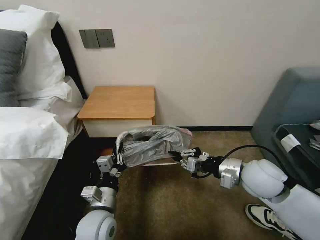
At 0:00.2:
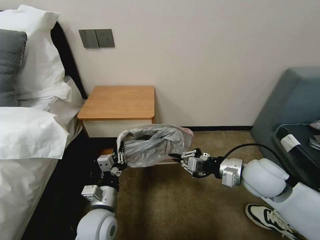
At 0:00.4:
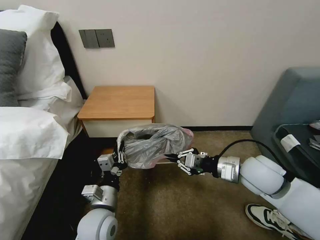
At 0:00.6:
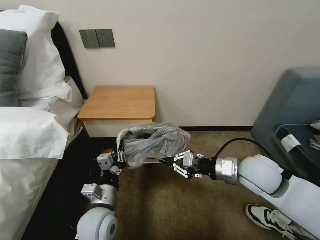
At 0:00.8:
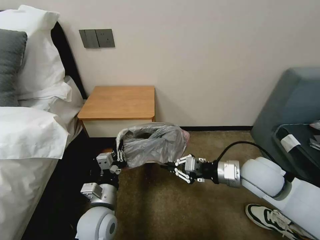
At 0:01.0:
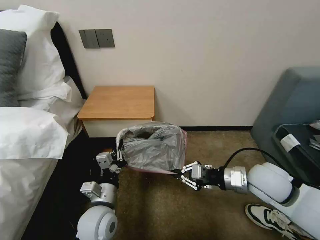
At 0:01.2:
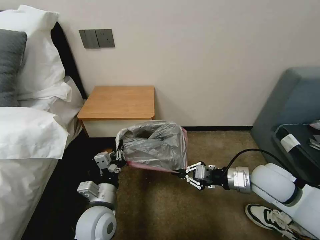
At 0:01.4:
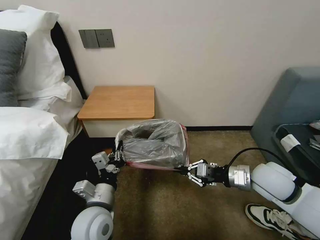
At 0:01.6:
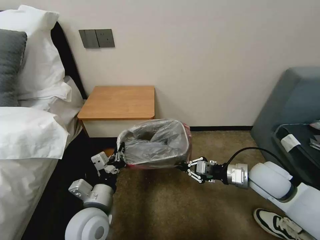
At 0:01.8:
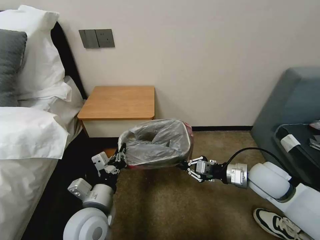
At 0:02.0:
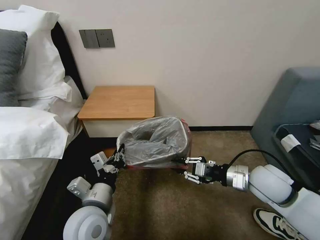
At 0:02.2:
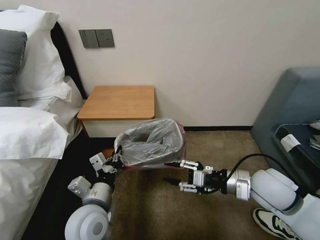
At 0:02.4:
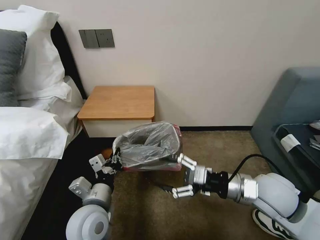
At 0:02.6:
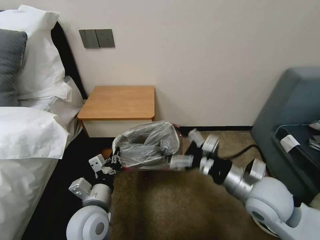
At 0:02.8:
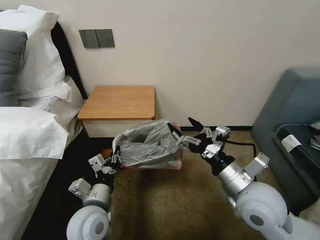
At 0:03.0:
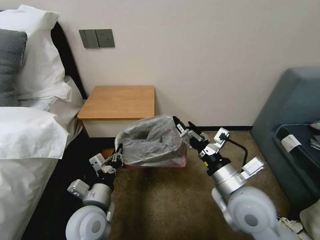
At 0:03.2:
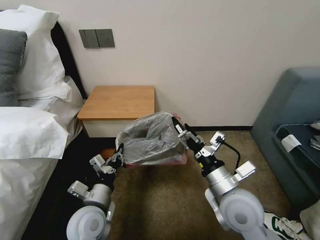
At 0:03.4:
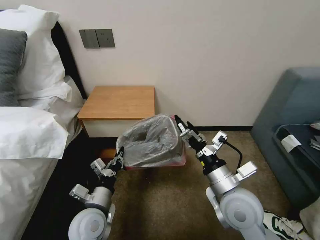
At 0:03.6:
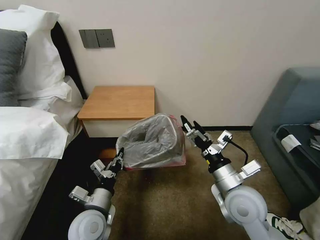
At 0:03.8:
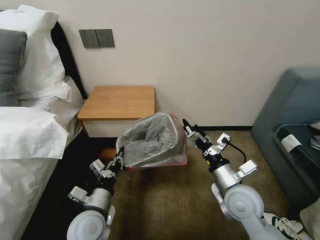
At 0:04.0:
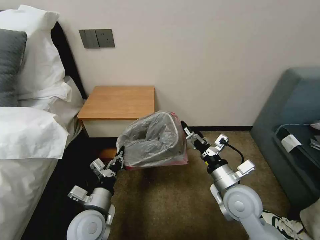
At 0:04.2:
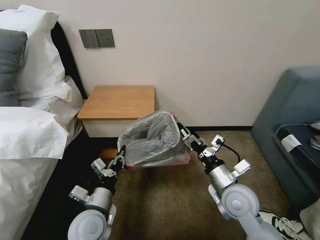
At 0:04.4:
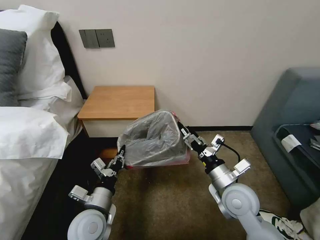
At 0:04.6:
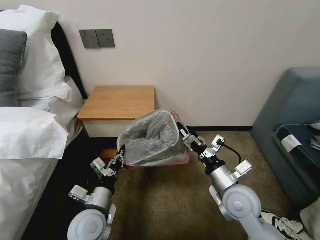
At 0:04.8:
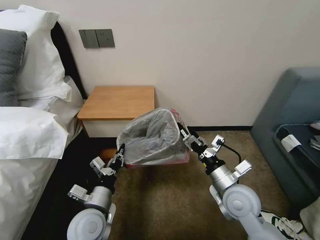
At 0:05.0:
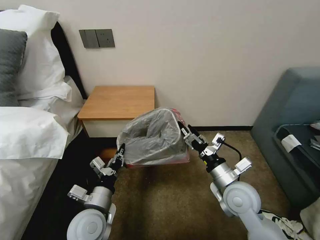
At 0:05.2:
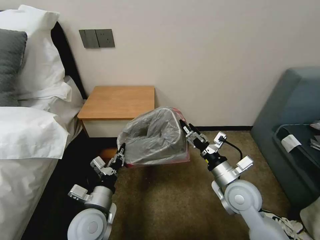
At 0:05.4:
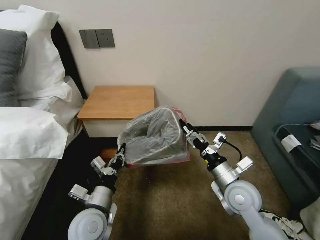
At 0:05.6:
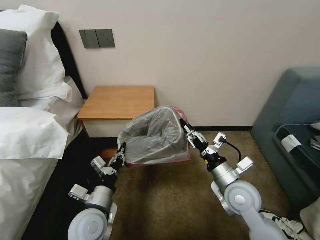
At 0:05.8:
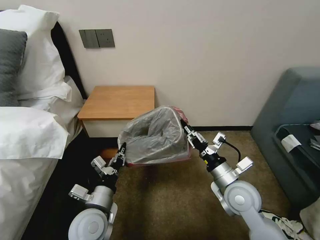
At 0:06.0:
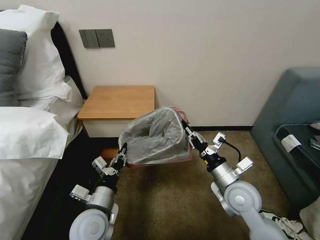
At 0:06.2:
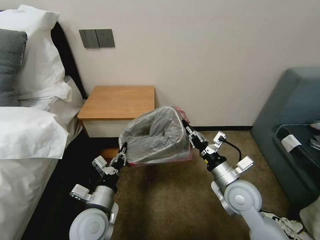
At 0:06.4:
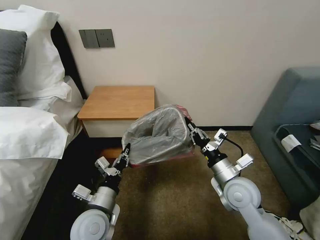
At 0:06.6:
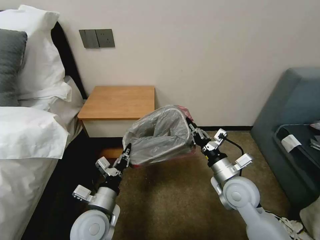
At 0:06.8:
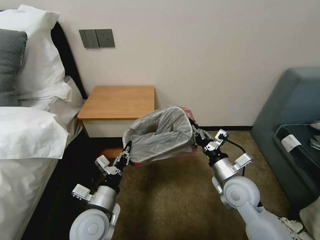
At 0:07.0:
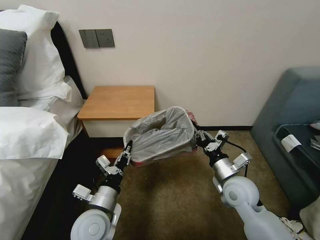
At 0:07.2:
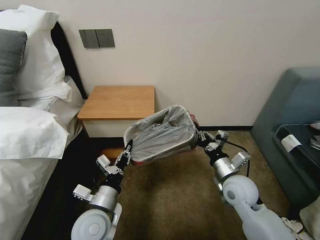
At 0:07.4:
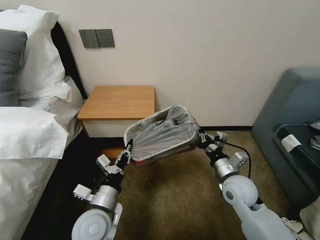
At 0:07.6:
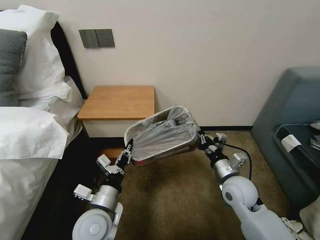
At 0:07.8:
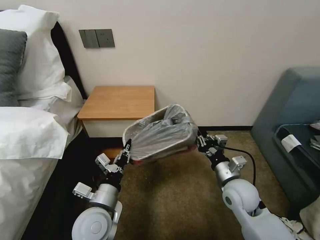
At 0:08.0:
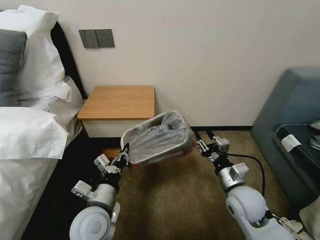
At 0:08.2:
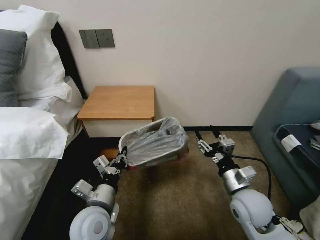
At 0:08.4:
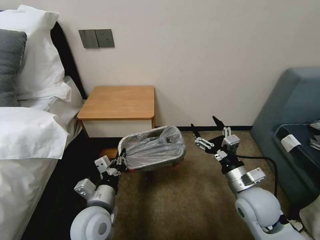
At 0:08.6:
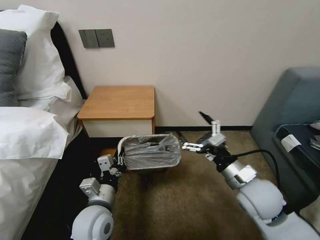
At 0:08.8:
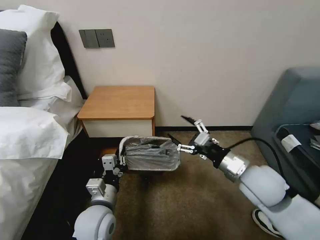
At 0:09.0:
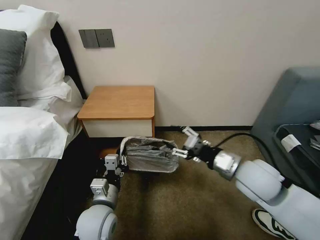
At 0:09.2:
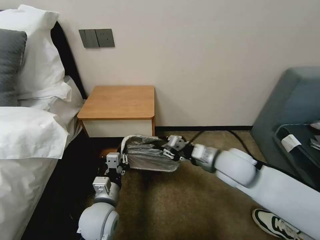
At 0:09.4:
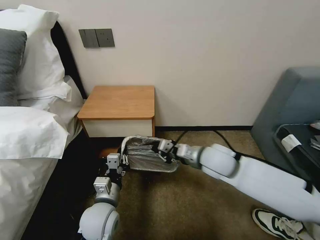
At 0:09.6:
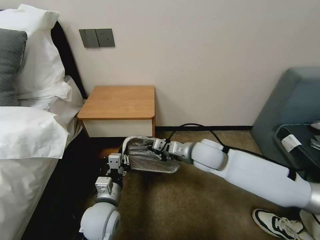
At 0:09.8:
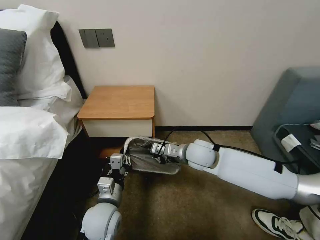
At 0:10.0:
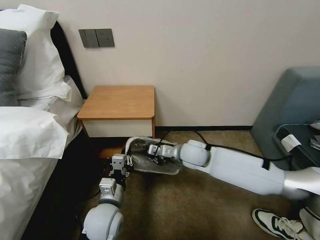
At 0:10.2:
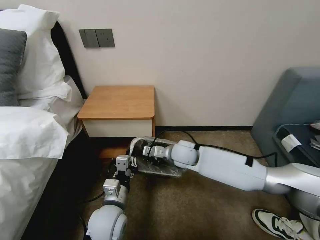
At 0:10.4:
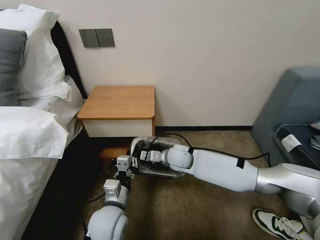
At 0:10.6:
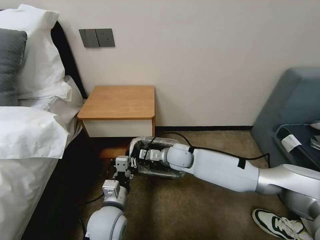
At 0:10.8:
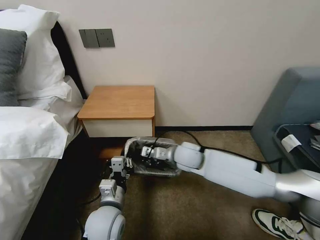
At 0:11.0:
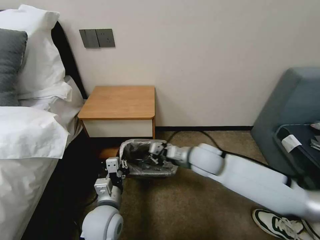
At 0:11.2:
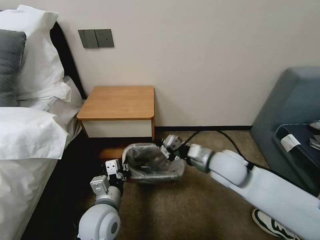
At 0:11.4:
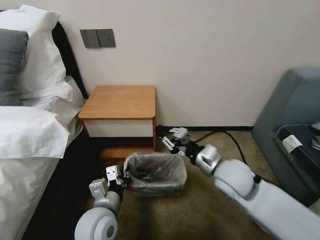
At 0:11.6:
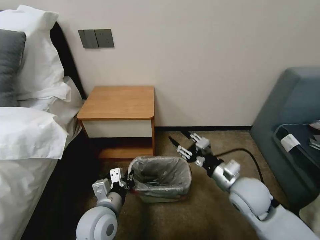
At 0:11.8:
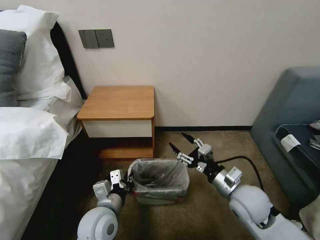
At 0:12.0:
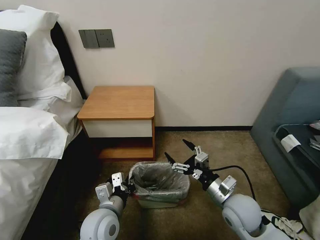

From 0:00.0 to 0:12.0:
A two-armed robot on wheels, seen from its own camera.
Task of the whole recording: Pick up the garbage bag from the table and place it over the trash can.
From 0:00.0 to 0:01.6: The left gripper moves upward, some 5 cm.
From 0:01.6 to 0:03.0: The right gripper moves to the left and backward, about 15 cm, and opens.
From 0:03.0 to 0:04.4: The right gripper moves downward, roughly 5 cm.
From 0:04.4 to 0:06.0: The right gripper closes.
From 0:07.6 to 0:09.0: The right gripper shifts approximately 10 cm upward, and opens.
From 0:09.0 to 0:10.4: The right gripper moves to the left, forward and downward, roughly 25 cm, and closes its fingers.
From 0:10.4 to 0:12.0: The right gripper shifts about 25 cm backward and to the right, and opens.

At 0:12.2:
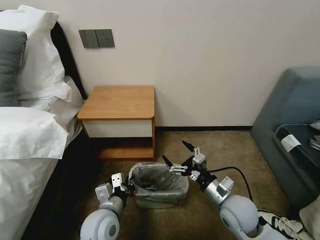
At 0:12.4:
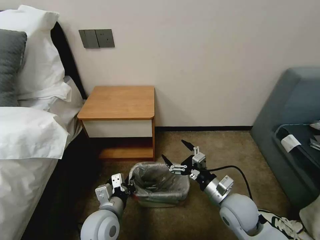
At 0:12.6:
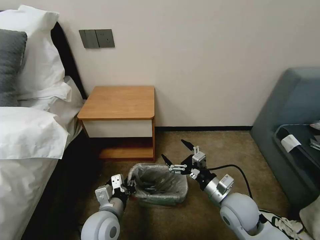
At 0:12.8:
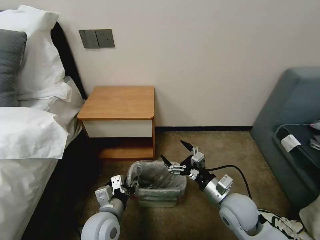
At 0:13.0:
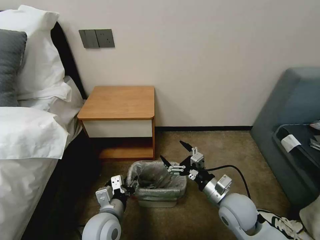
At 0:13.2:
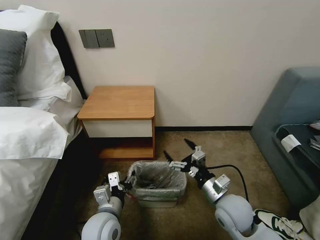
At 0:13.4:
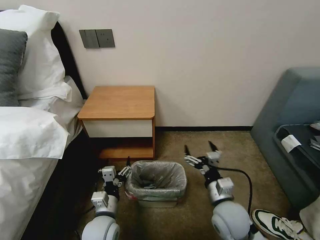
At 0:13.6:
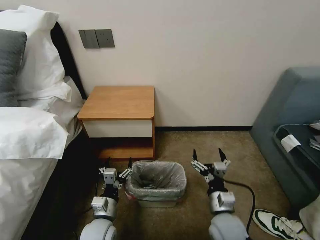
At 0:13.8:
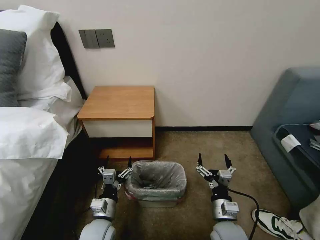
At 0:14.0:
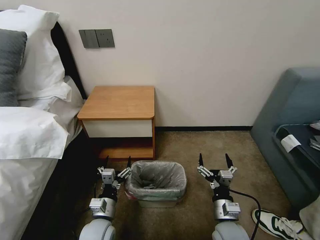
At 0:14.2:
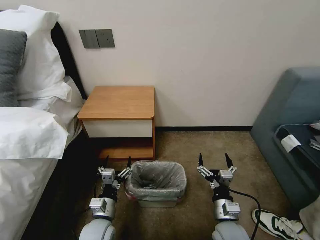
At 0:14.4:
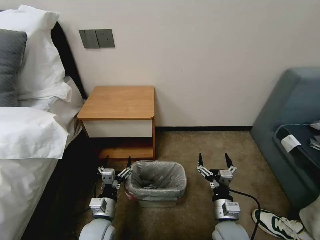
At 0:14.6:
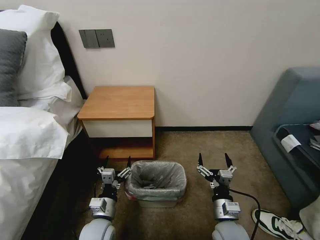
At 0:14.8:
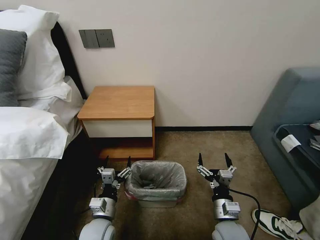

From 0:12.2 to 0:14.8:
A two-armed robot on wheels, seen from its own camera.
Task of the whole recording: Pick up the garbage bag from the table and place it over the trash can.
From 0:12.2 to 0:13.4: The left gripper opens its fingers.
From 0:13.4 to 0:14.8: The right gripper heads downward, covering approximately 5 cm.
